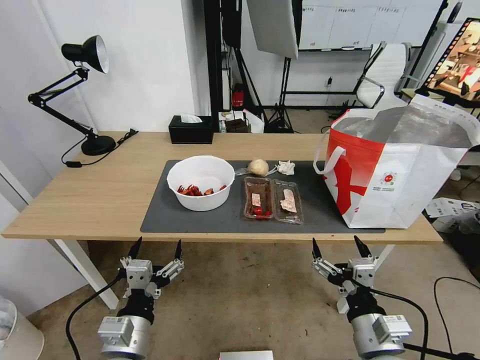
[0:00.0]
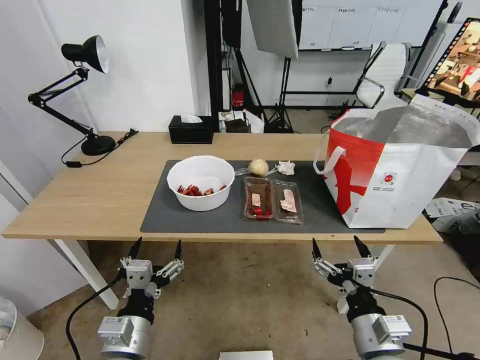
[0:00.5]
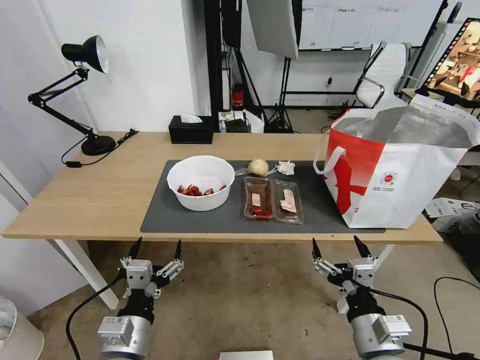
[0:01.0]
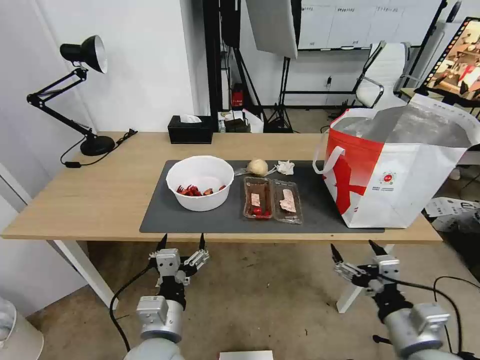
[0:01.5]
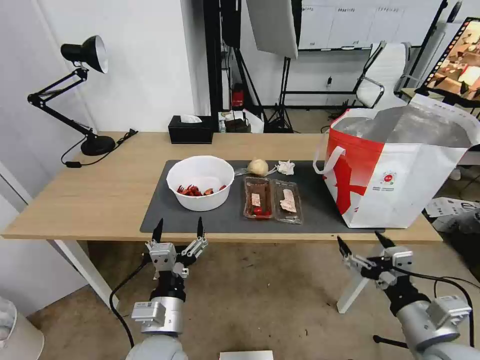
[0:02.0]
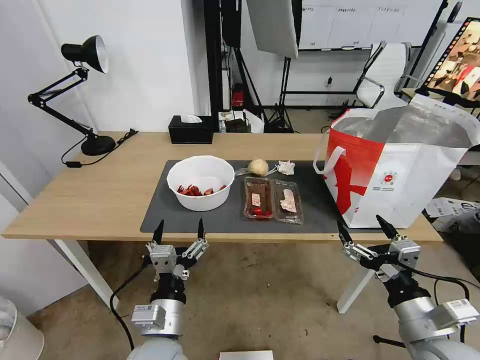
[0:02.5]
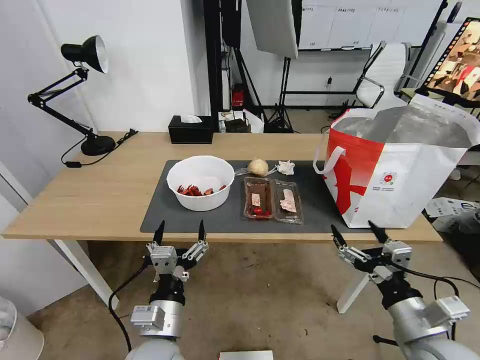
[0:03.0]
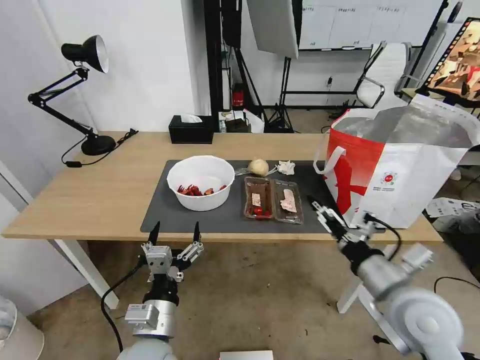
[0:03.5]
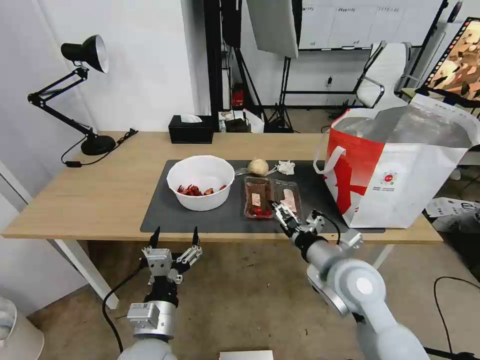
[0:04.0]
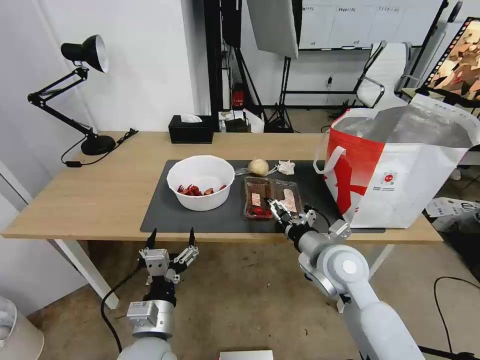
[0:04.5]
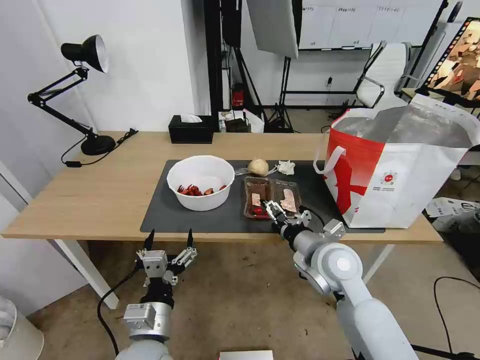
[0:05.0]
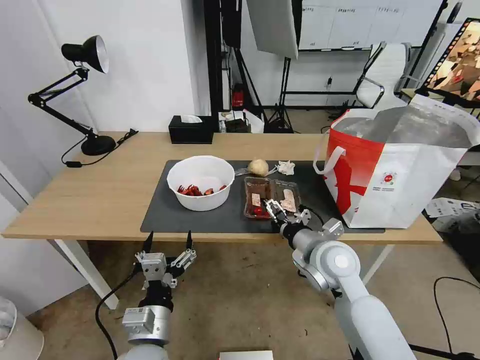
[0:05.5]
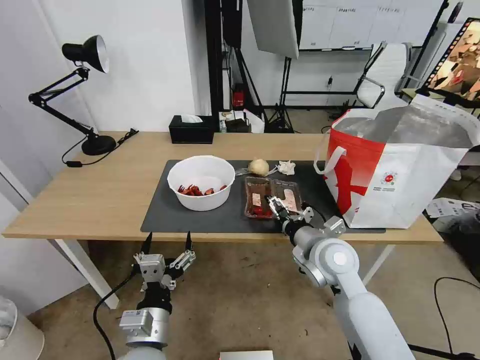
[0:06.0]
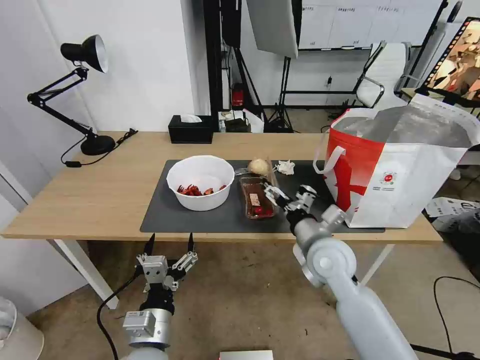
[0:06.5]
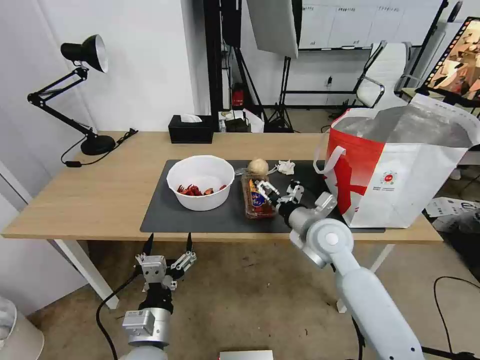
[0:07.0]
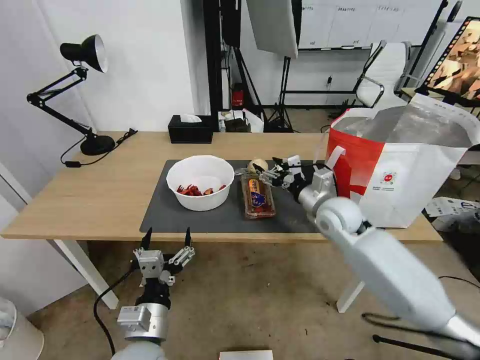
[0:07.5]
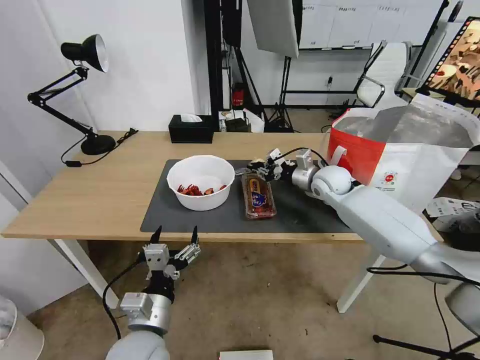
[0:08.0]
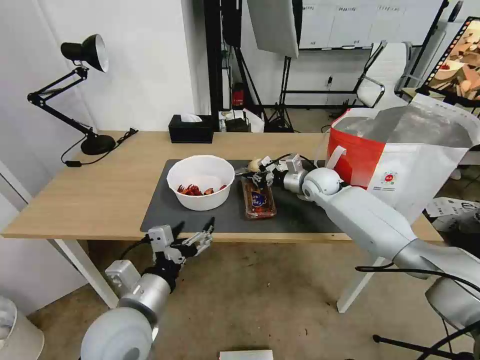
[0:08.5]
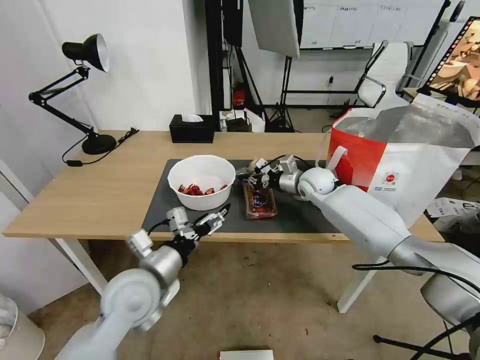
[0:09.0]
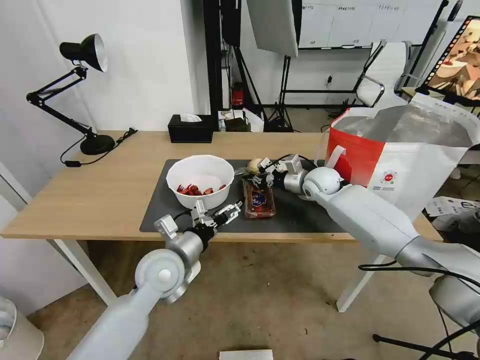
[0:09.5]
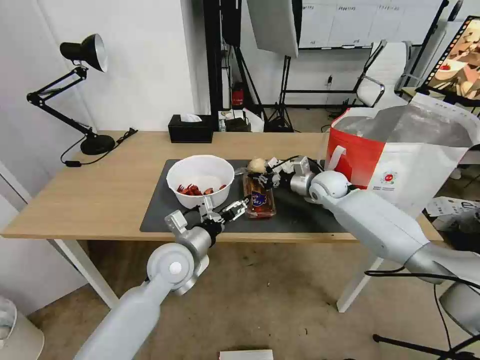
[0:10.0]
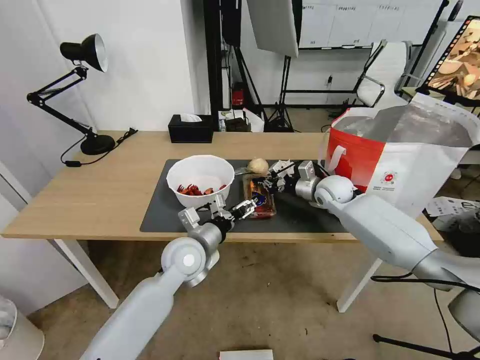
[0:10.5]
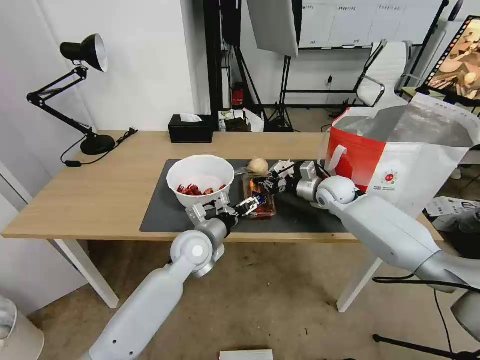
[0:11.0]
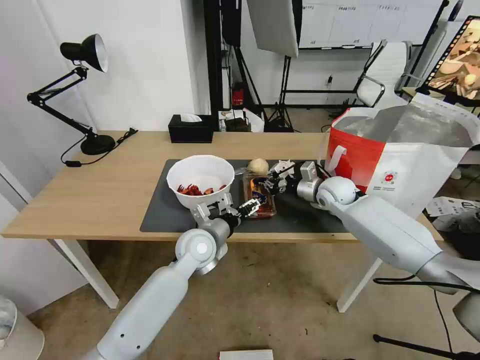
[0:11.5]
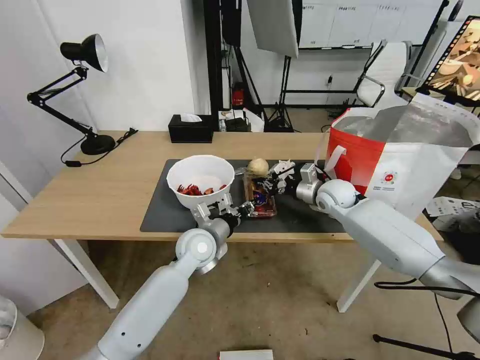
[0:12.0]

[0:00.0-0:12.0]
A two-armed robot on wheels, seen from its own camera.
Task of the whole recording: Pick up the trash from the table and place it into the takeout bag.
0:02.0 to 0:04.0: The right gripper travels forward and to the left by some 20 cm.
0:04.0 to 0:06.0: The right gripper shifts some 5 cm forward.
0:06.0 to 0:08.0: The right gripper heads forward, covering approximately 20 cm, and closes.
0:08.0 to 0:10.0: The left gripper shifts about 15 cm forward.
0:10.0 to 0:12.0: The left gripper goes approximately 5 cm forward, and closes.

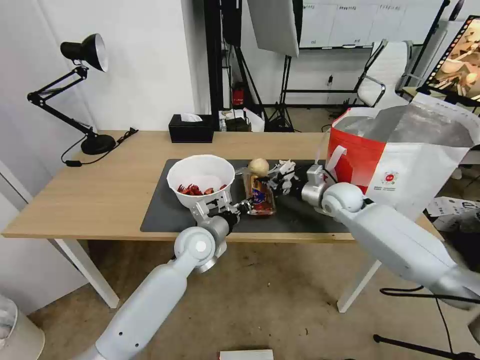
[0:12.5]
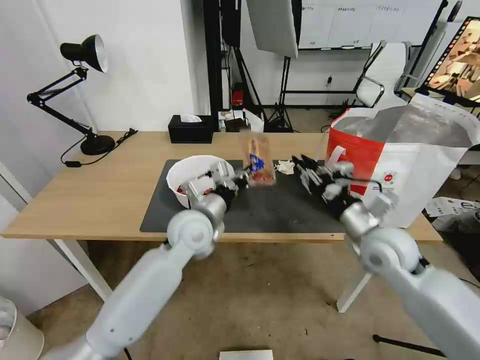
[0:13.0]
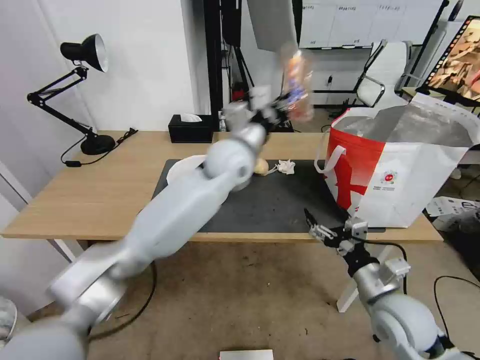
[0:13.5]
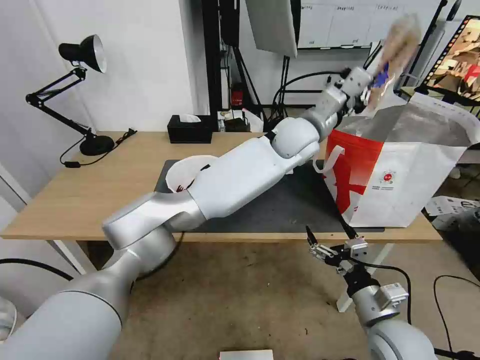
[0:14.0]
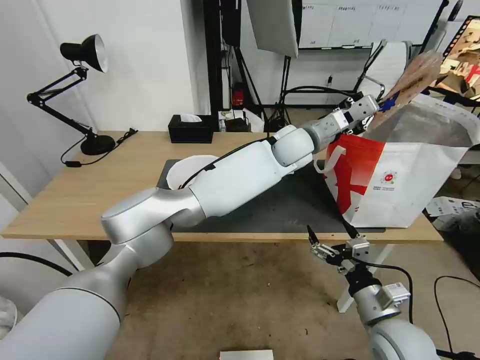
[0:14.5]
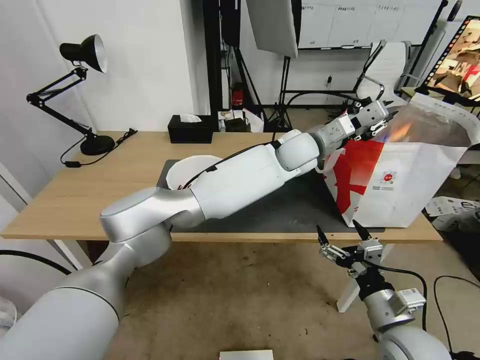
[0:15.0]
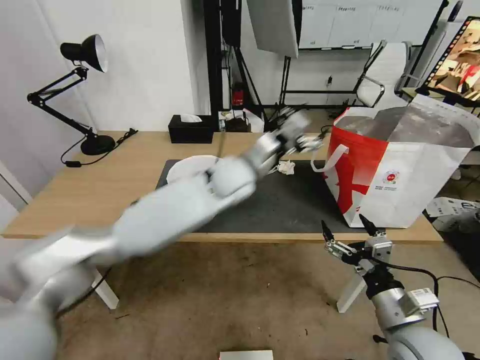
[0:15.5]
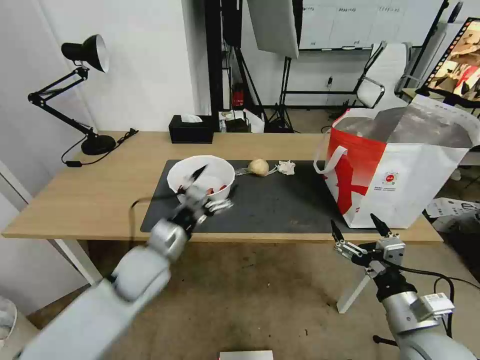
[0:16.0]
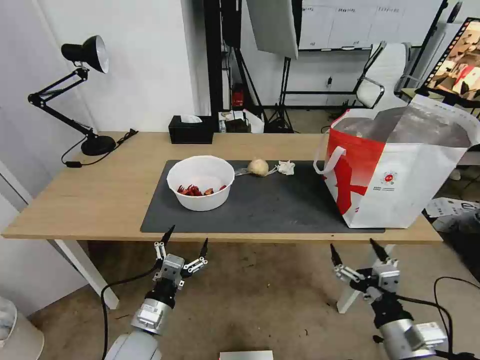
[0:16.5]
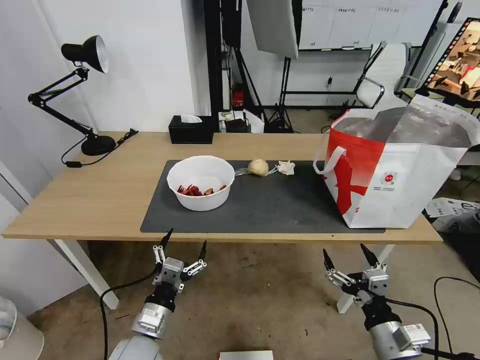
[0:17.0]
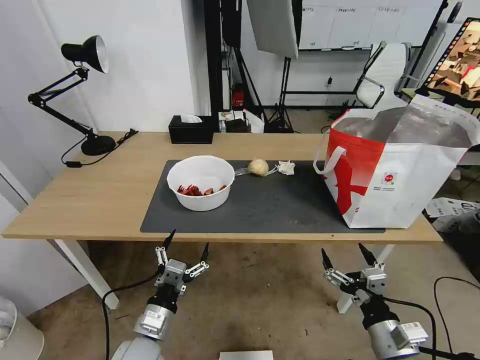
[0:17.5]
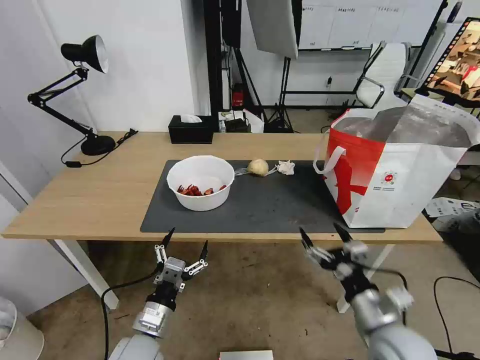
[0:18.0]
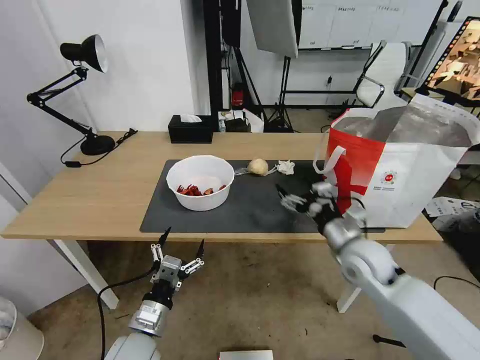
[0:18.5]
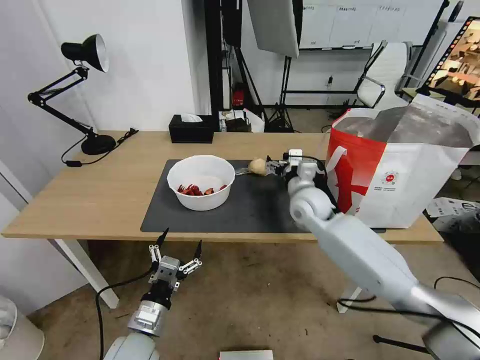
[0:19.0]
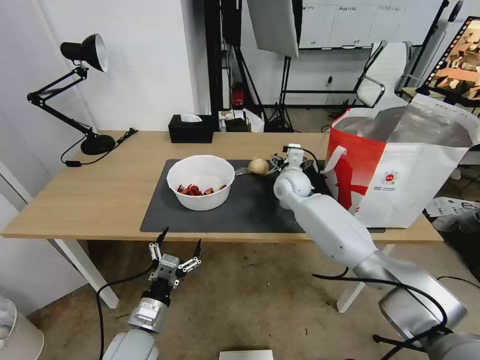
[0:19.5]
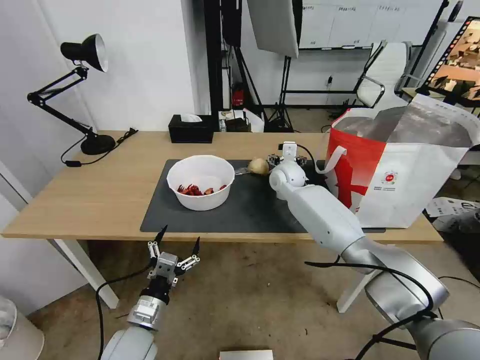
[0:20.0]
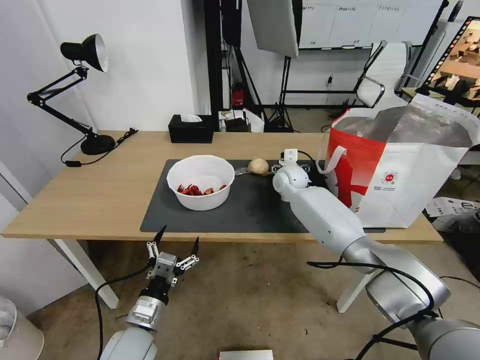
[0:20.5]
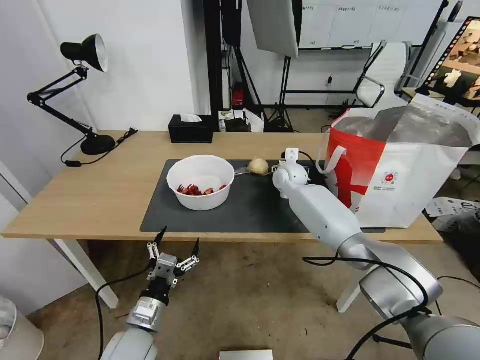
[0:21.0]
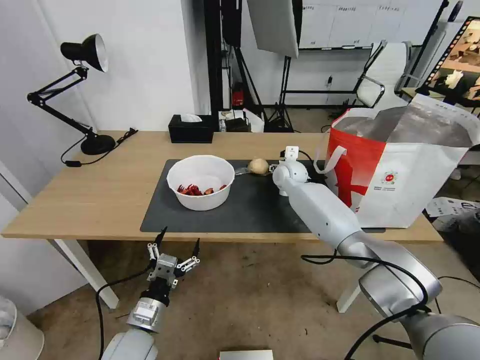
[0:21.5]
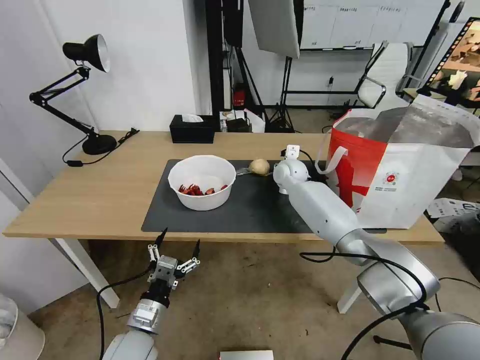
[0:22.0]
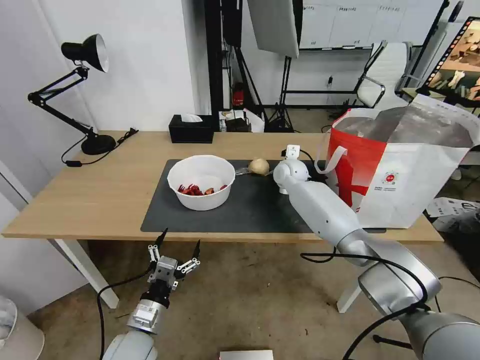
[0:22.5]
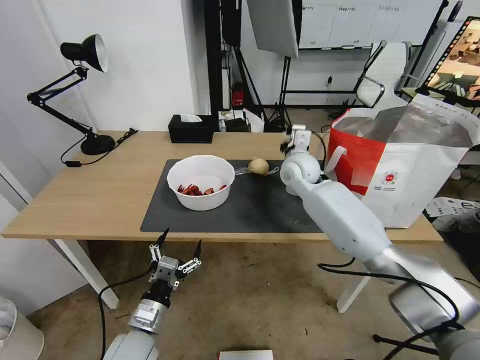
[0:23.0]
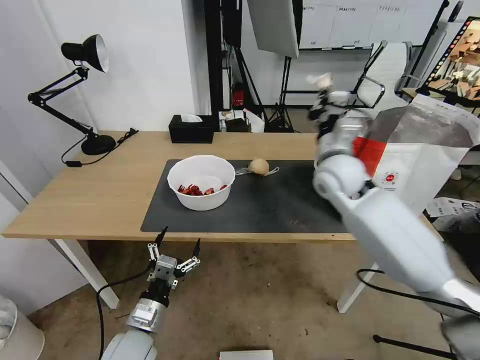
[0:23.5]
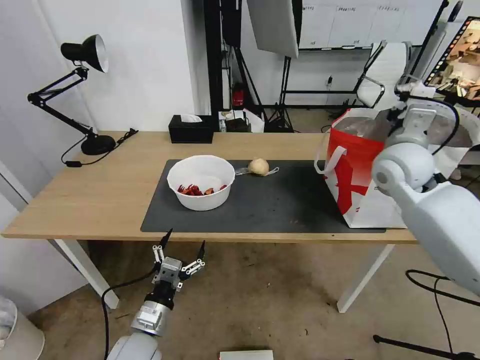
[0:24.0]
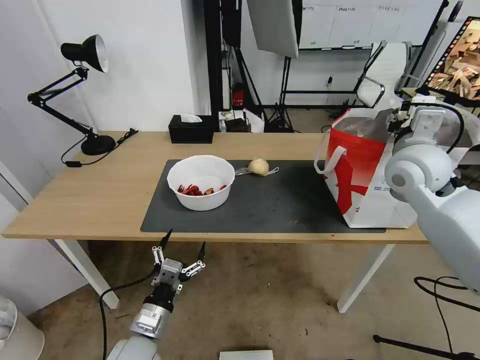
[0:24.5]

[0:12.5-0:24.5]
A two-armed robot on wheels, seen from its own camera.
Task of the whole recording: Pick up the trash from the table and place it into the takeout bag.
0:12.5 to 0:14.5: The left gripper heads to the right, upward and forward, covering about 30 cm; the right gripper shifts some 30 cm backward, and opens up.
0:14.5 to 0:16.5: The left gripper heads backward, to the left and downward, covering approximately 50 cm, and opens its fingers; the right gripper moves backward, about 5 cm.
0:16.5 to 0:18.5: The right gripper shifts some 20 cm forward.
0:18.5 to 0:20.5: The right gripper goes approximately 30 cm forward and to the left.
0:20.5 to 0:22.5: The right gripper closes up.
0:22.5 to 0:24.5: The right gripper heads backward, to the right and upward, covering approximately 30 cm, and opens its fingers.

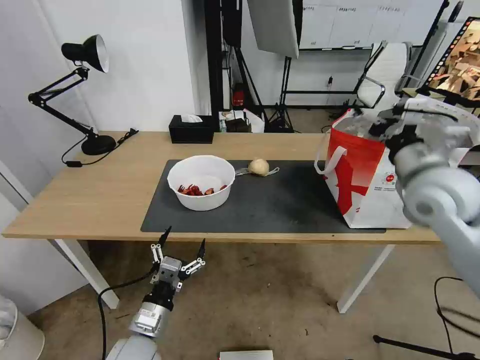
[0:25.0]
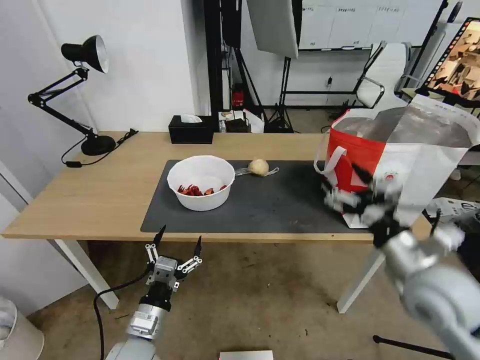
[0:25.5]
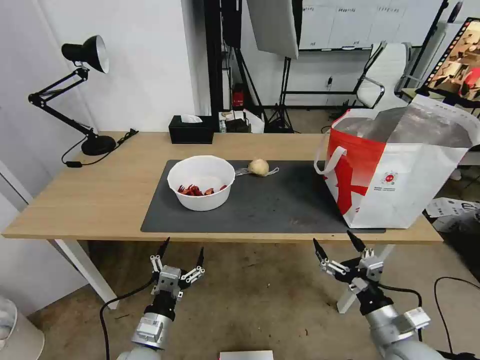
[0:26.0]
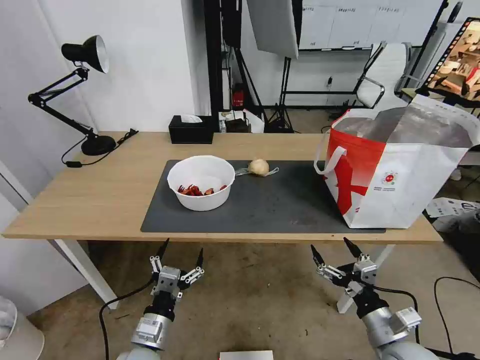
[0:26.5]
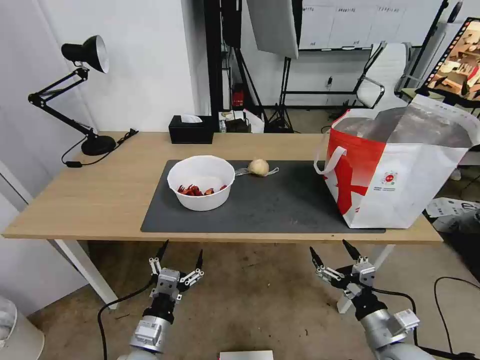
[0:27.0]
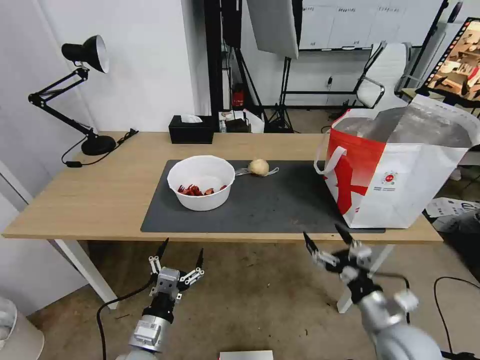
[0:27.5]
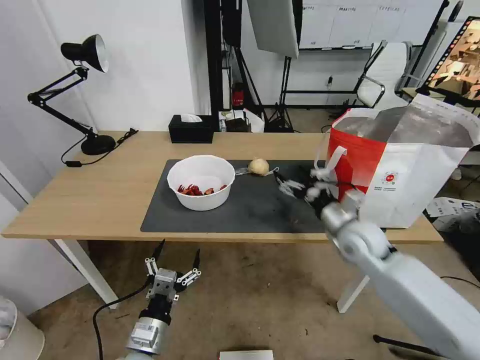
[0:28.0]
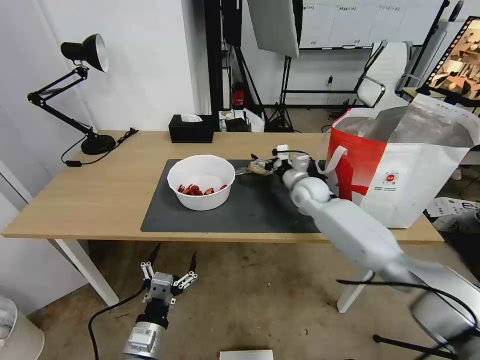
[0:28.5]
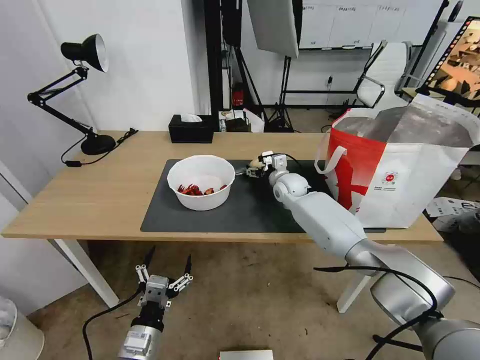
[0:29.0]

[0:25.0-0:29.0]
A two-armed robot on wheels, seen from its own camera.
Task of the whole recording: Pick up the trash from the table and place it into the takeout bag.
0:25.0 to 0:27.0: The right gripper is displaced downward and backward by roughly 35 cm.
0:27.0 to 0:29.0: The right gripper shifts roughly 40 cm forward.
